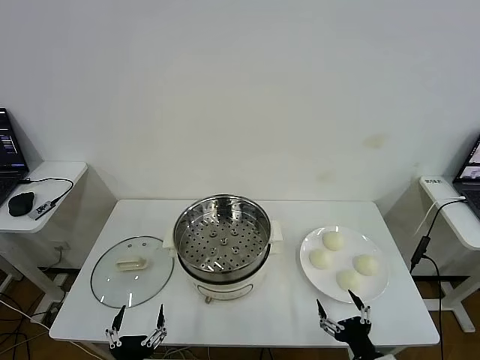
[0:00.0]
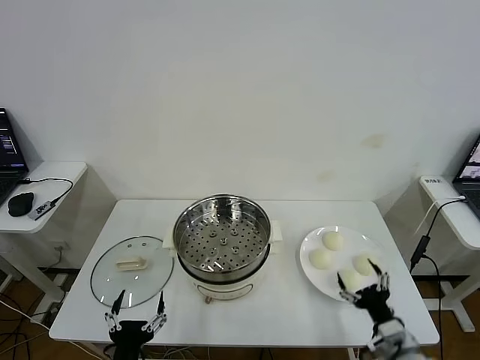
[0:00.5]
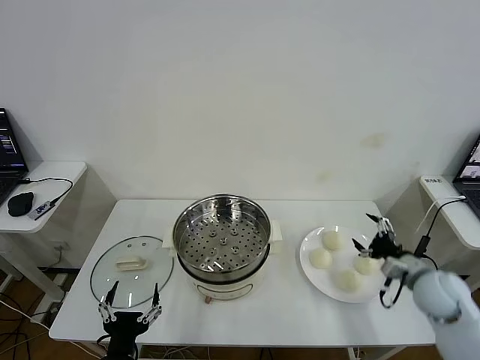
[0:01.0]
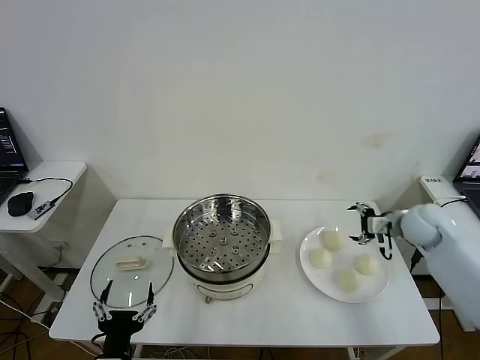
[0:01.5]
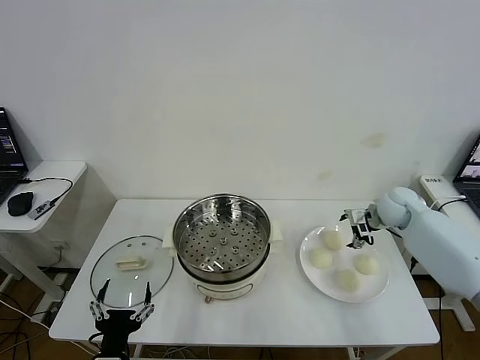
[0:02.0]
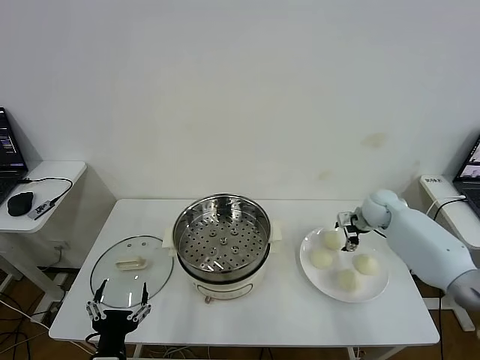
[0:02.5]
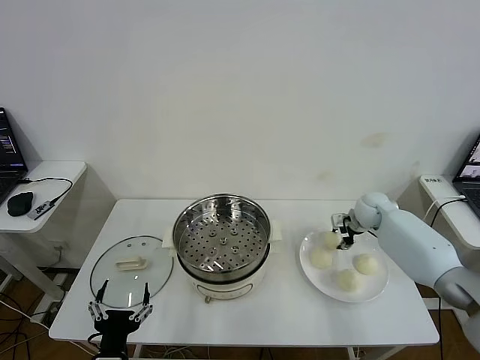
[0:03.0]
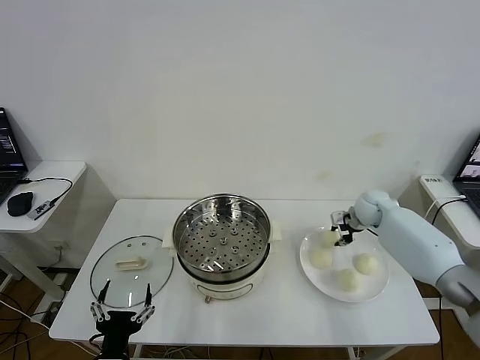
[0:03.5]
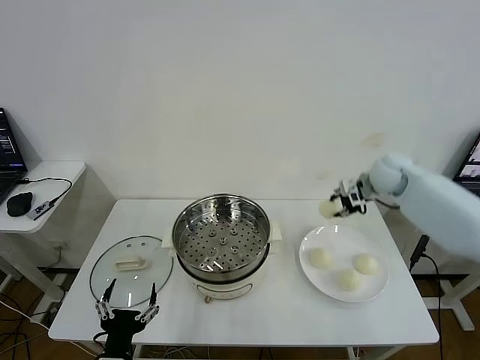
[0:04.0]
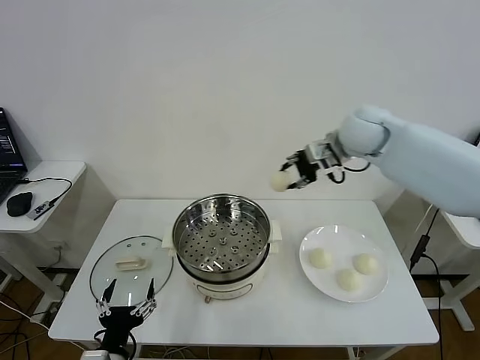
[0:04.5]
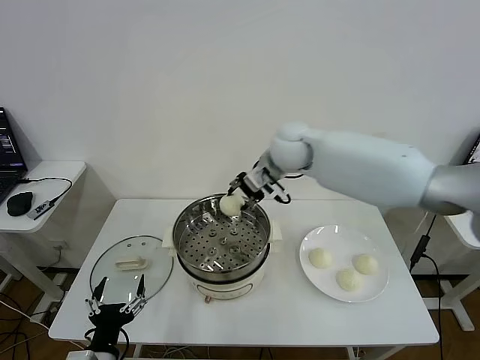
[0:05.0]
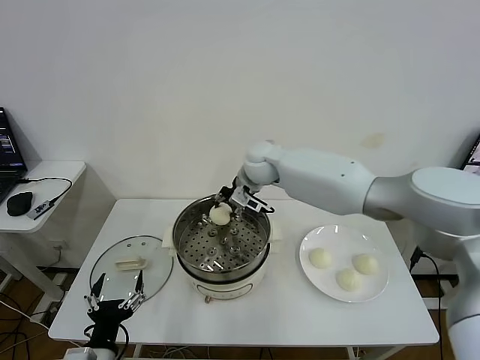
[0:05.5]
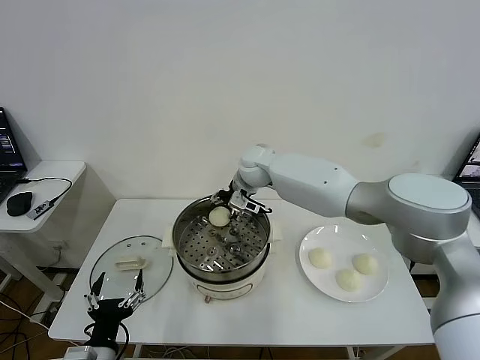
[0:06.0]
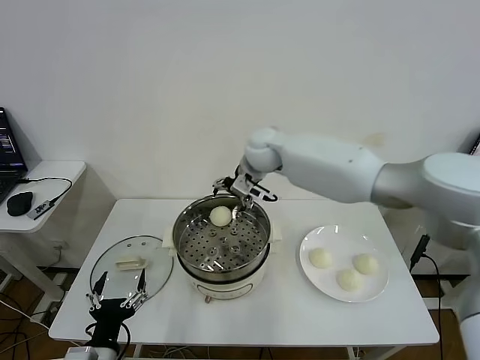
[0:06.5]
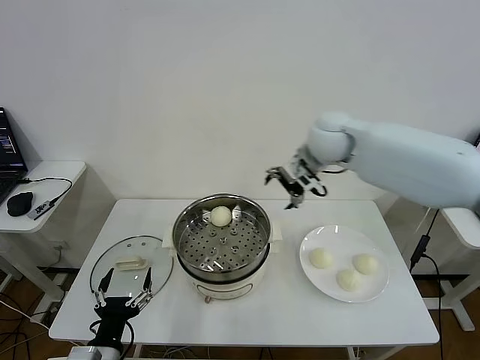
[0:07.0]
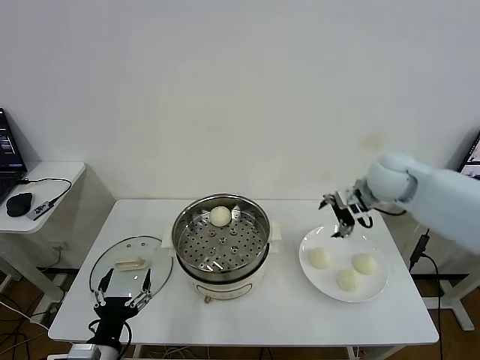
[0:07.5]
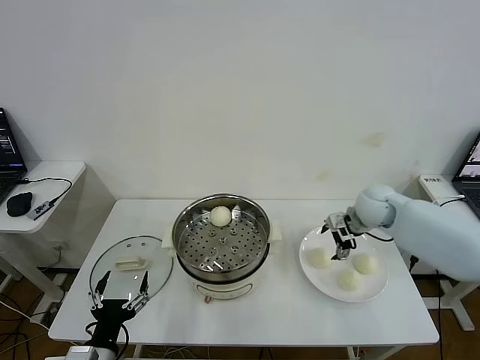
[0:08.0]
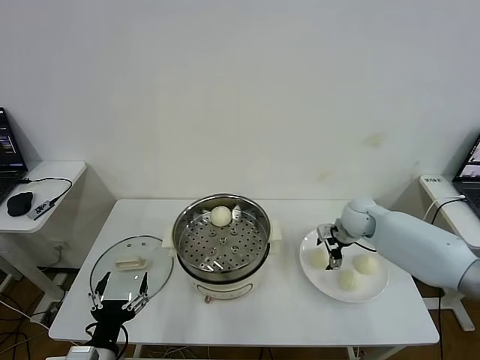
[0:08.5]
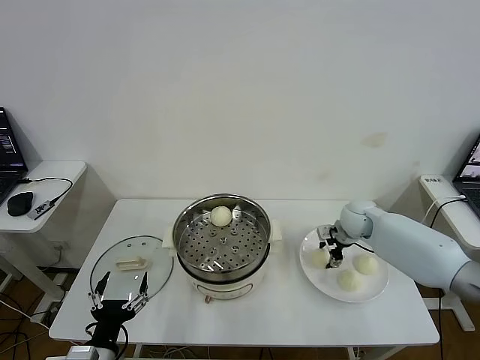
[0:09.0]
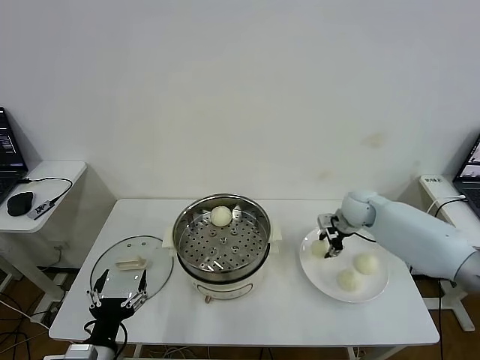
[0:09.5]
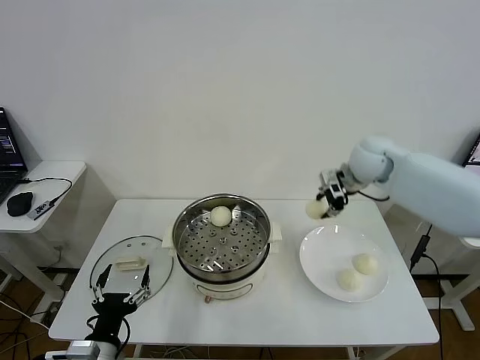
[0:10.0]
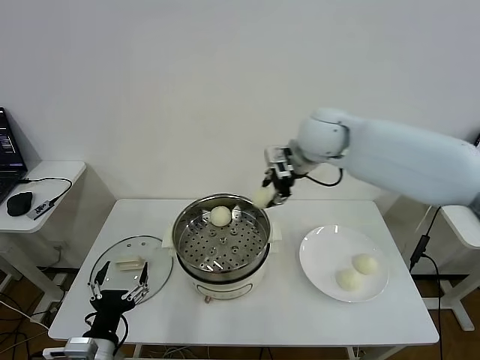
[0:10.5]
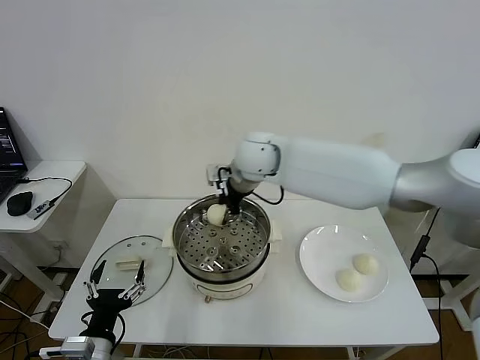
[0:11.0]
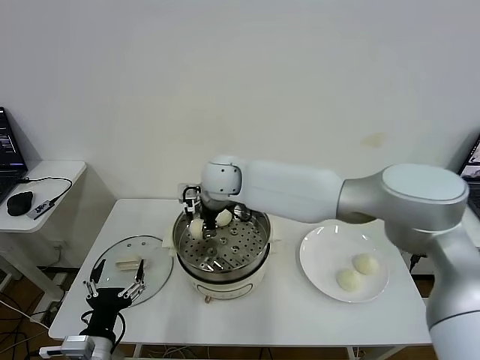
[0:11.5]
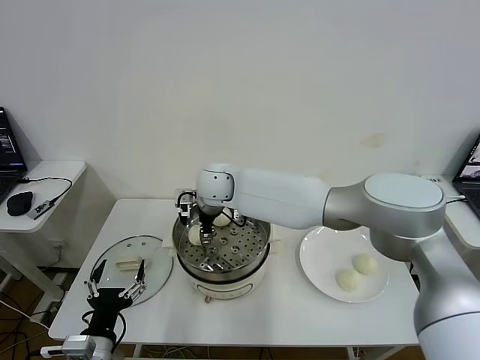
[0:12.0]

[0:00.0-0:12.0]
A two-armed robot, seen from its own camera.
Task of the whole recording: take steamed baozi put them in steamer then cover it.
Step, 0.0 to 3.0 s: Grasp the baozi in the plate with right gripper.
Step, 3.5 to 6.0 s: Place the baozi on the steamer with right gripper.
Step, 6.5 to 9.0 s: Grasp the baozi in the plate with right gripper.
2.0 to 4.0 s: The right gripper travels upward by about 15 cm, and closes up.
4.0 to 6.0 s: The right gripper goes some 30 cm to the left, and opens.
6.0 to 8.0 s: The right gripper shifts some 25 cm to the right.
8.0 to 10.0 s: The right gripper goes some 15 cm upward, and closes its fingers.
10.0 to 12.0 s: The right gripper moves to the left, about 30 cm, and opens up.

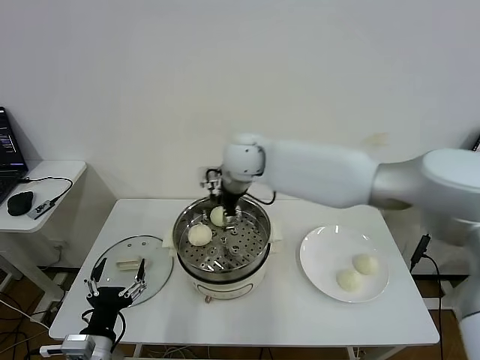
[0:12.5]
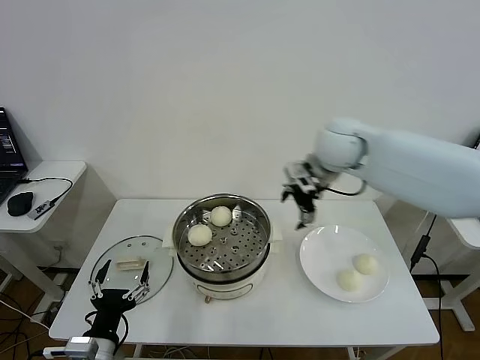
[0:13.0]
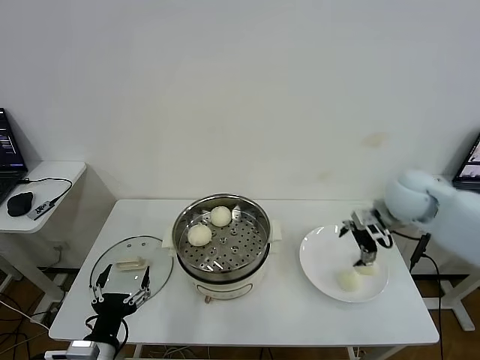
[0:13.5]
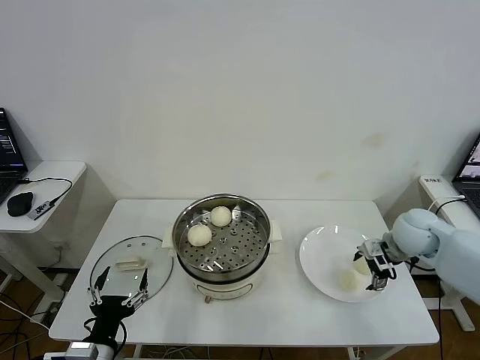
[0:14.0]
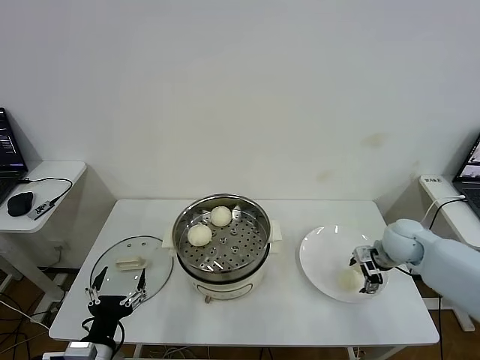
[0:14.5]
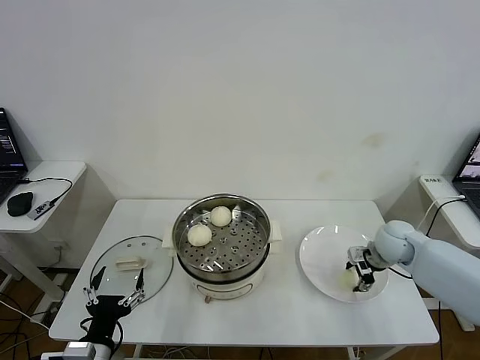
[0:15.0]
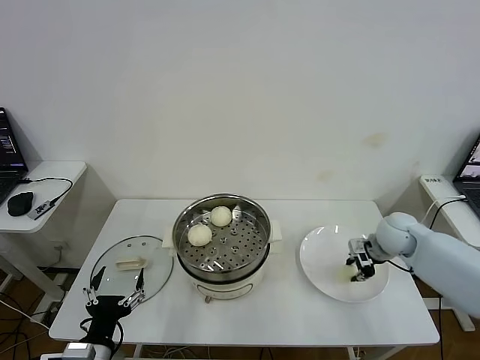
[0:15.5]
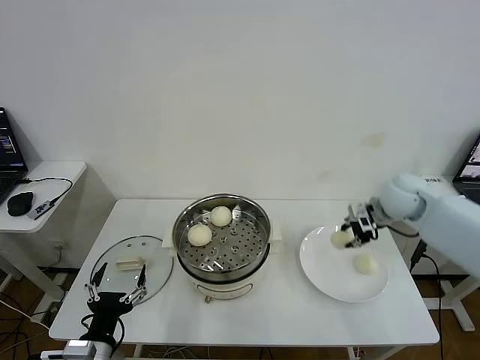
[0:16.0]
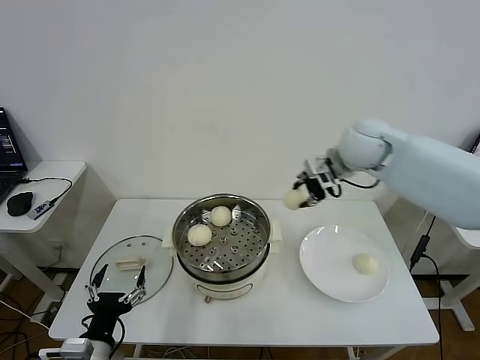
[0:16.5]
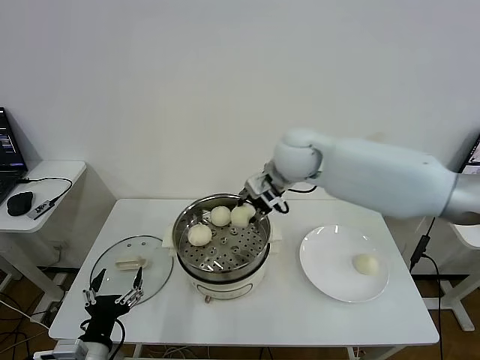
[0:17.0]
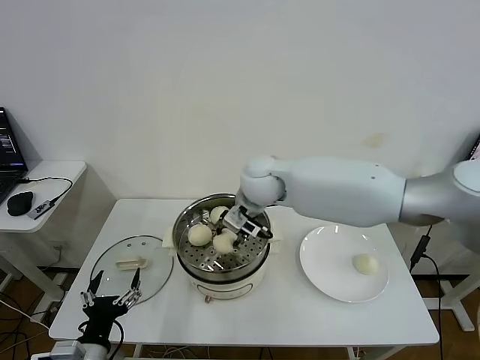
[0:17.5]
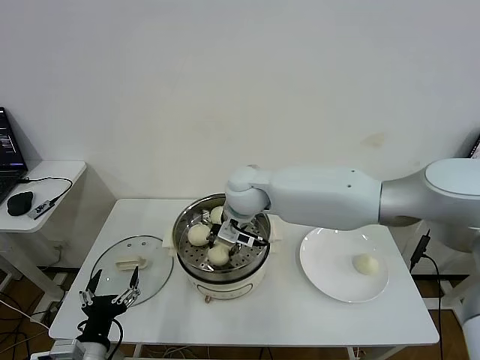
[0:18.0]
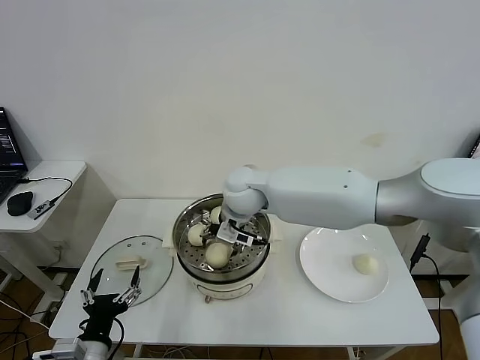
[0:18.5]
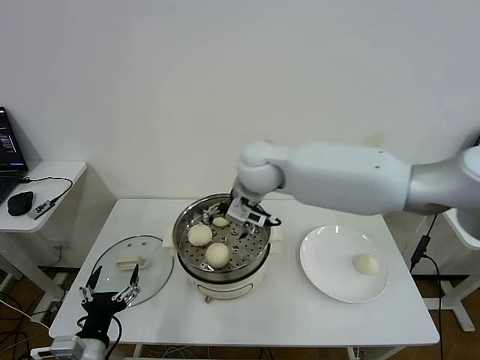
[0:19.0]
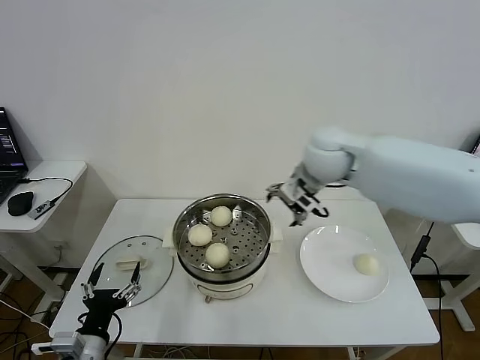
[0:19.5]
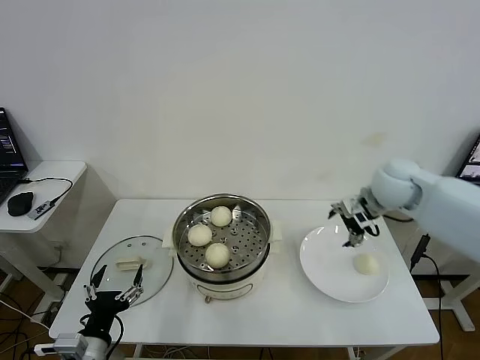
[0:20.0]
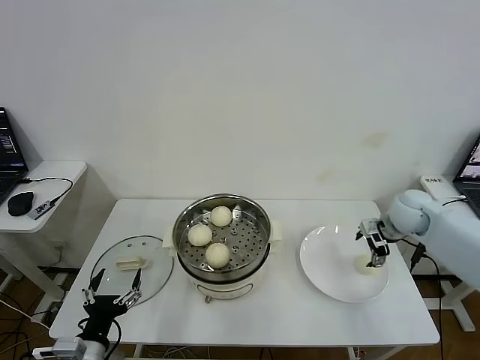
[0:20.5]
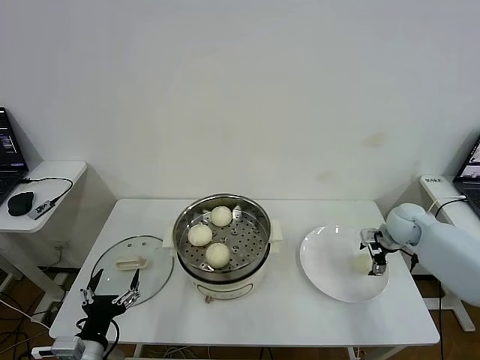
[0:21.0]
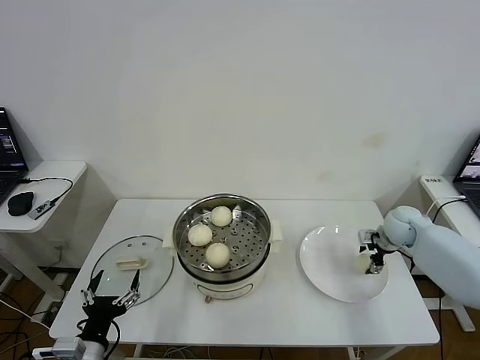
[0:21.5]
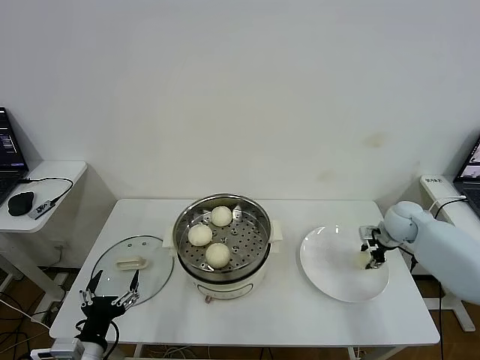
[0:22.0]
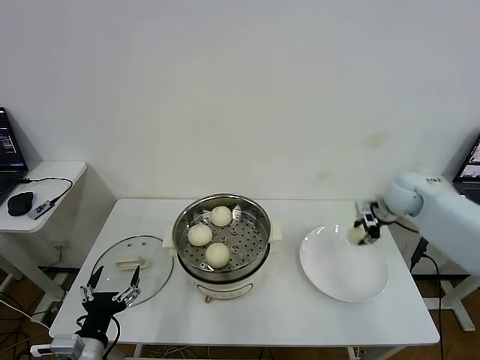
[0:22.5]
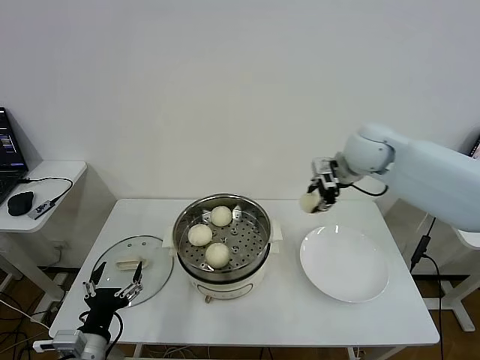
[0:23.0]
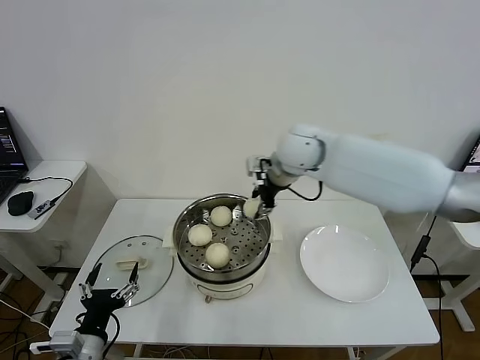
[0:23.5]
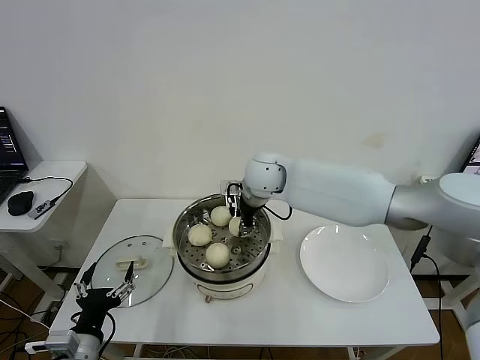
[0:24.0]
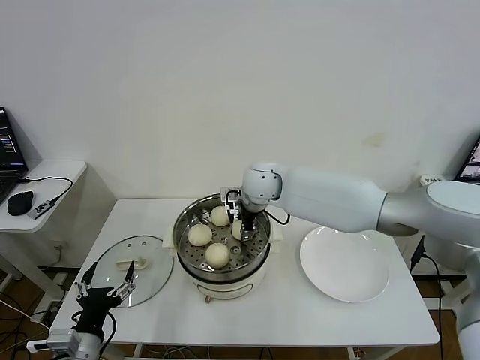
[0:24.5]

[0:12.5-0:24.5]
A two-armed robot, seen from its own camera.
Task of the whole recording: take steamed baozi put them in steamer then cover it.
Step, 12.5 to 15.0 s: Grasp the baozi in the plate with right gripper.
Step, 15.5 to 18.5 s: Place the baozi on the steamer with right gripper.
Step, 19.0 to 22.0 s: Grasp the baozi in the plate with right gripper.
12.5 to 14.5 s: The right gripper goes approximately 40 cm to the right and downward.
14.5 to 16.5 s: The right gripper travels upward and to the left by roughly 30 cm, and closes its fingers.
16.5 to 18.5 s: The right gripper heads to the left and downward, covering roughly 25 cm, and opens up.
18.5 to 20.5 s: The right gripper heads to the right, covering some 40 cm.
20.5 to 22.5 s: The right gripper moves approximately 5 cm, and closes.
22.5 to 24.5 s: The right gripper travels to the left by roughly 35 cm.

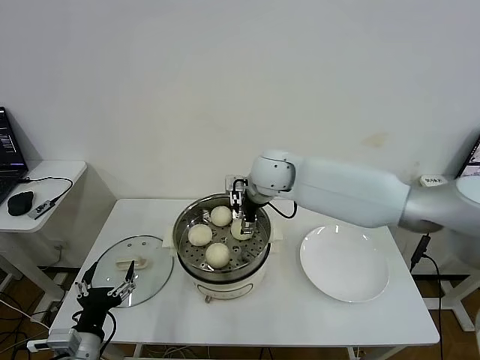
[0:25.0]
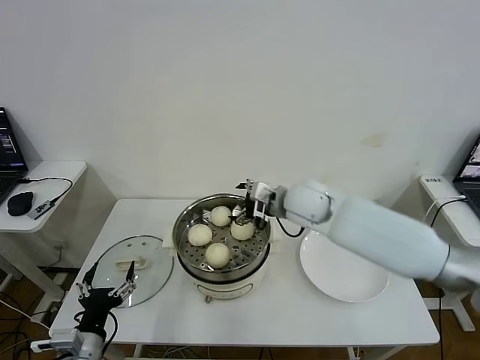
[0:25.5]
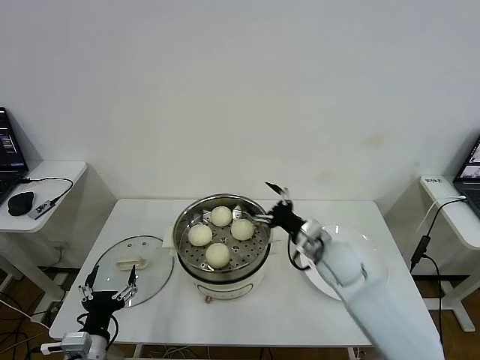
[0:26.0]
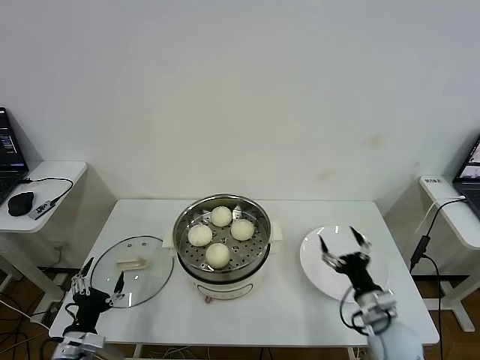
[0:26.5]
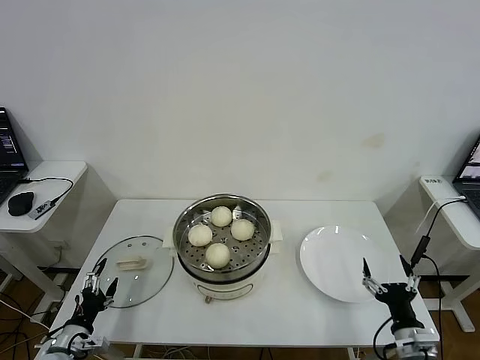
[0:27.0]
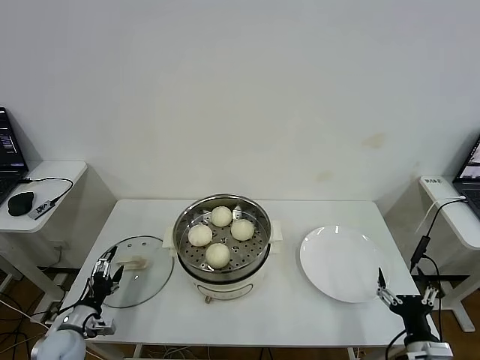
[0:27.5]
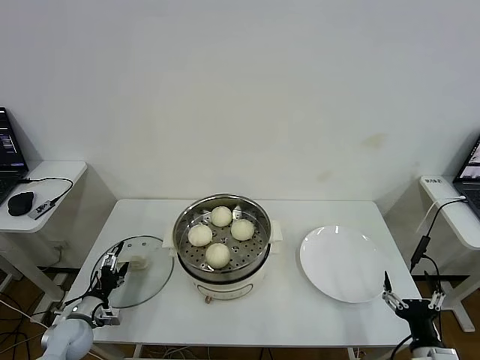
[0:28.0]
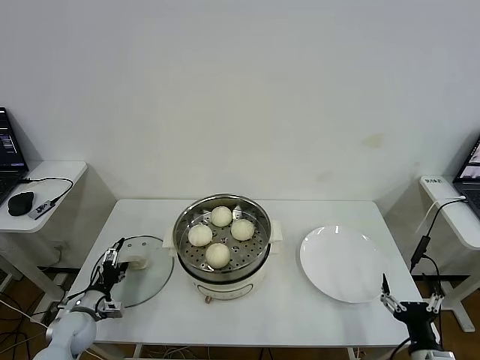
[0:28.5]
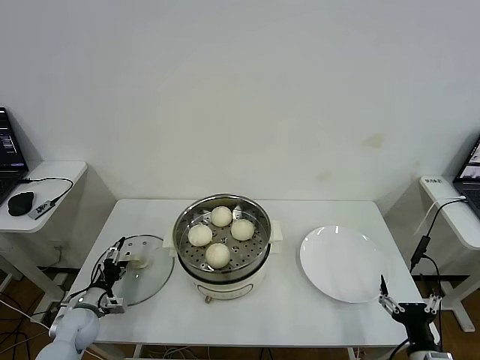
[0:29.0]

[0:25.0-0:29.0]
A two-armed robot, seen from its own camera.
Task of the whole recording: take steamed baozi put them in steamer then cover it.
25.0 to 27.0 s: The right gripper is displaced backward, to the right and downward by approximately 50 cm. Meanwhile the left gripper is displaced to the left and downward by about 15 cm.
27.0 to 29.0 s: The left gripper goes about 10 cm forward.
